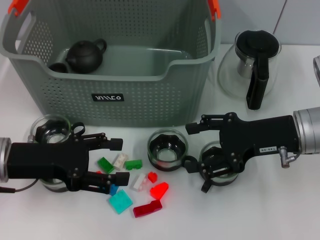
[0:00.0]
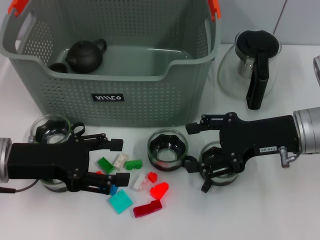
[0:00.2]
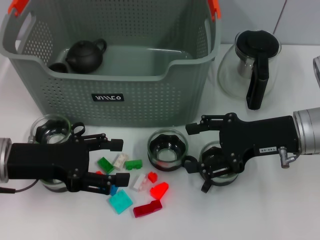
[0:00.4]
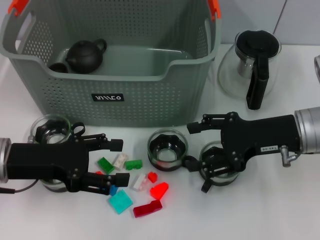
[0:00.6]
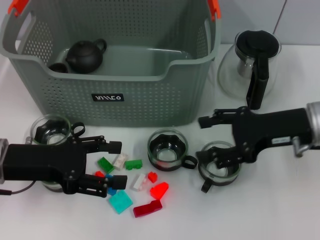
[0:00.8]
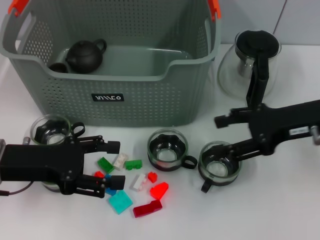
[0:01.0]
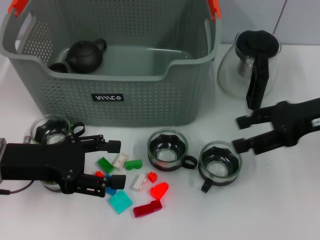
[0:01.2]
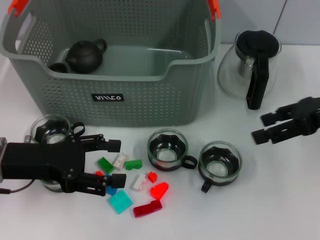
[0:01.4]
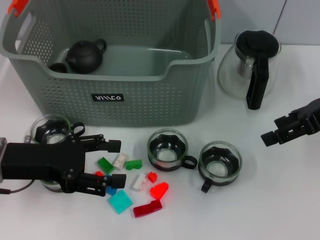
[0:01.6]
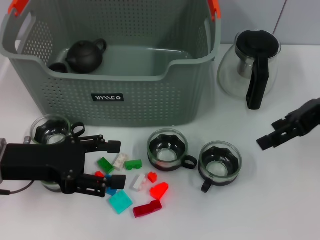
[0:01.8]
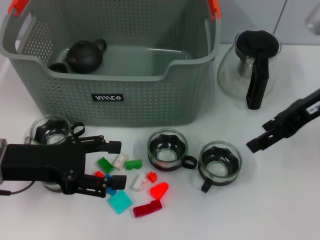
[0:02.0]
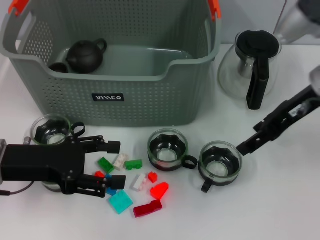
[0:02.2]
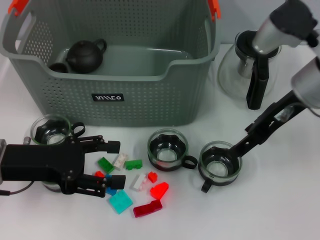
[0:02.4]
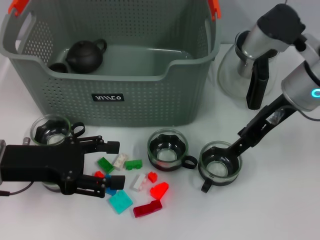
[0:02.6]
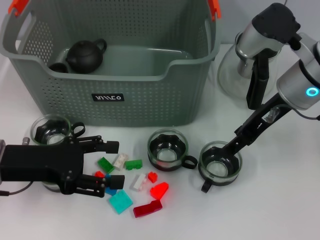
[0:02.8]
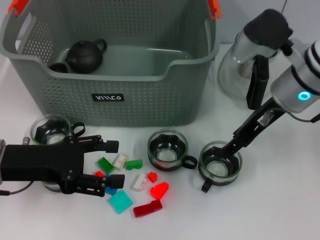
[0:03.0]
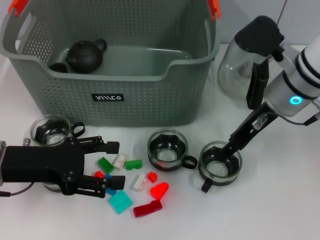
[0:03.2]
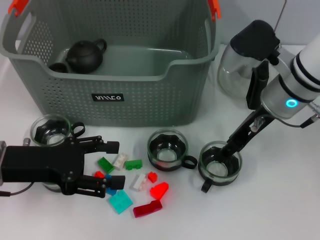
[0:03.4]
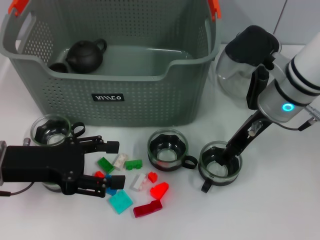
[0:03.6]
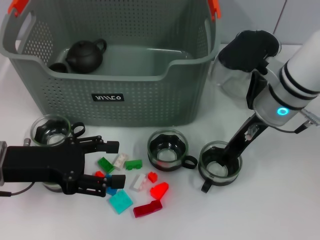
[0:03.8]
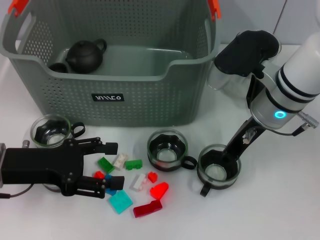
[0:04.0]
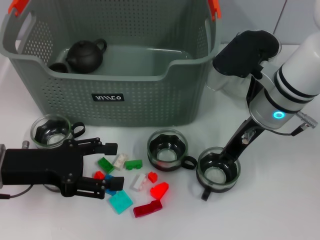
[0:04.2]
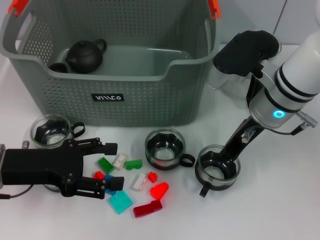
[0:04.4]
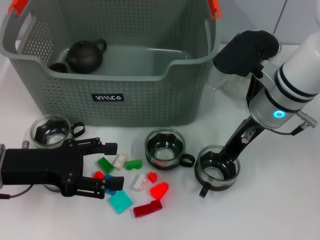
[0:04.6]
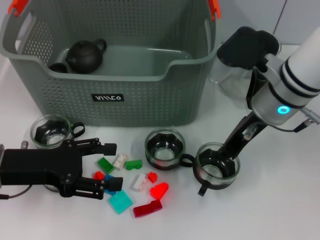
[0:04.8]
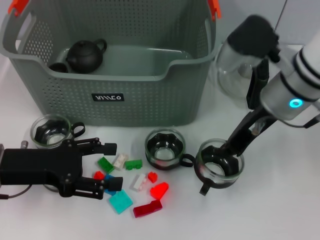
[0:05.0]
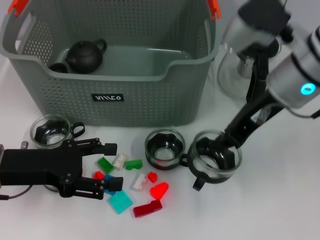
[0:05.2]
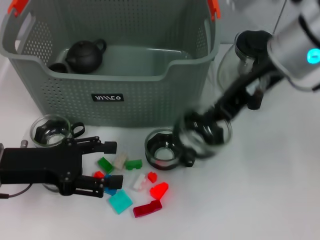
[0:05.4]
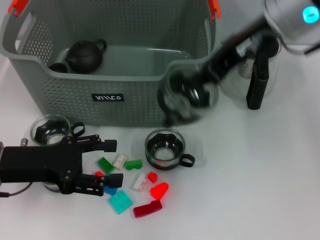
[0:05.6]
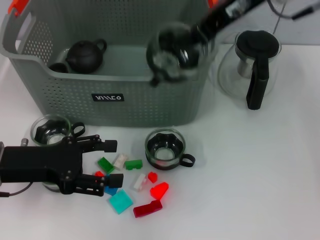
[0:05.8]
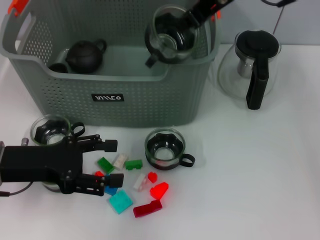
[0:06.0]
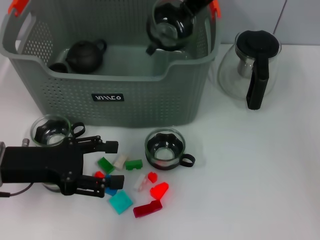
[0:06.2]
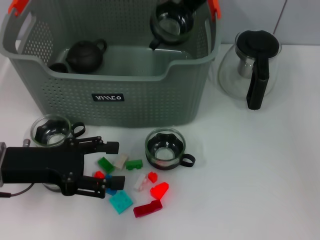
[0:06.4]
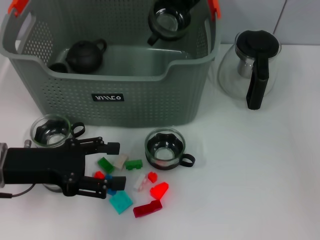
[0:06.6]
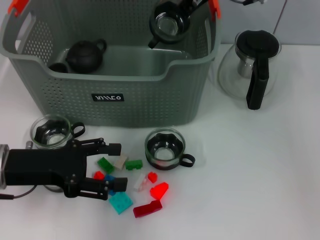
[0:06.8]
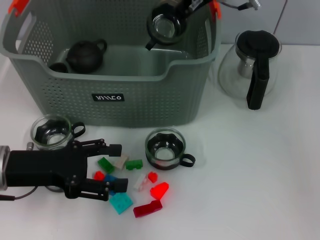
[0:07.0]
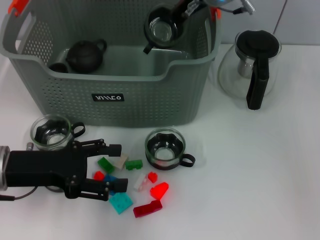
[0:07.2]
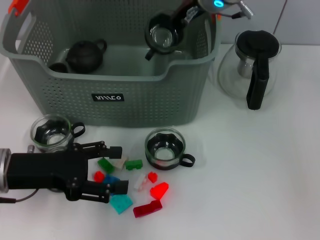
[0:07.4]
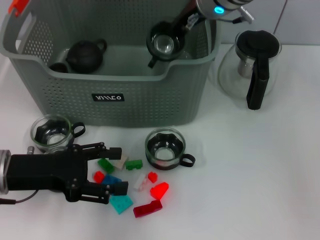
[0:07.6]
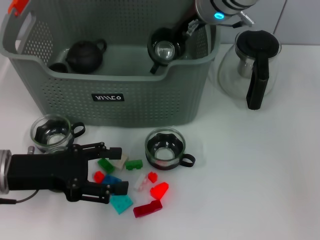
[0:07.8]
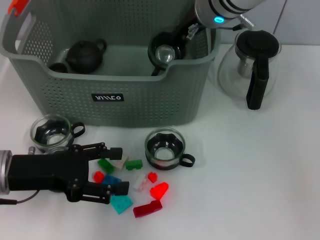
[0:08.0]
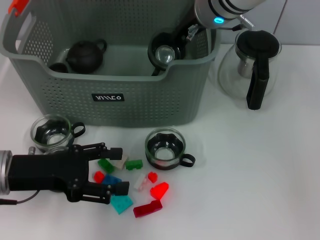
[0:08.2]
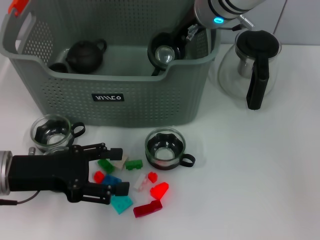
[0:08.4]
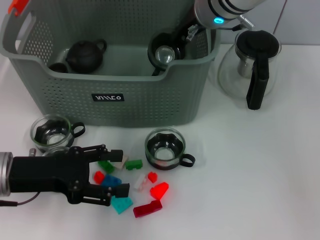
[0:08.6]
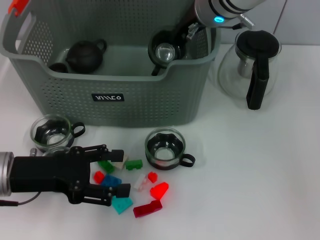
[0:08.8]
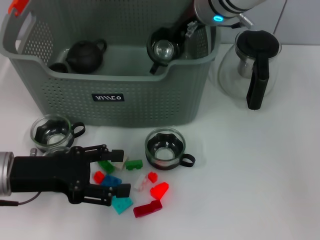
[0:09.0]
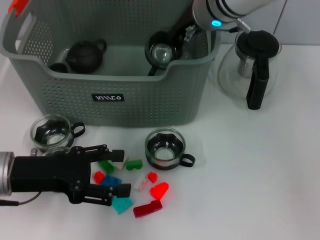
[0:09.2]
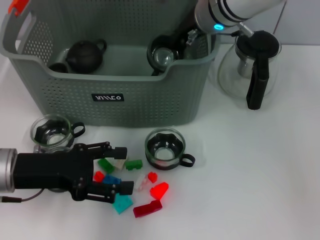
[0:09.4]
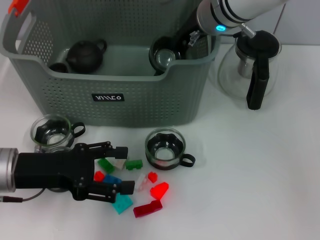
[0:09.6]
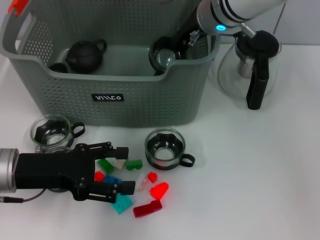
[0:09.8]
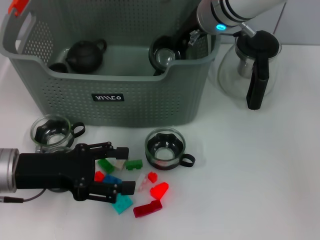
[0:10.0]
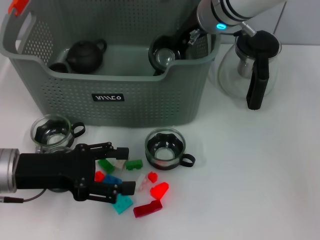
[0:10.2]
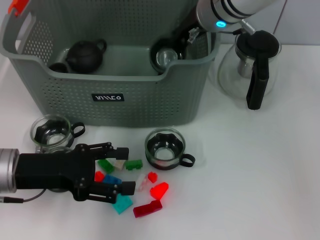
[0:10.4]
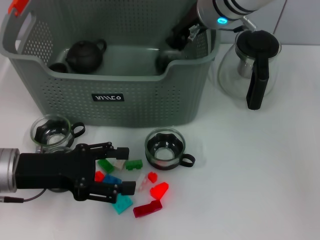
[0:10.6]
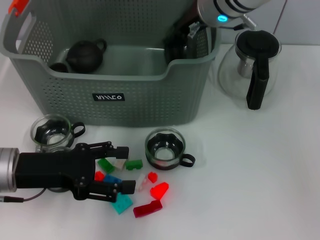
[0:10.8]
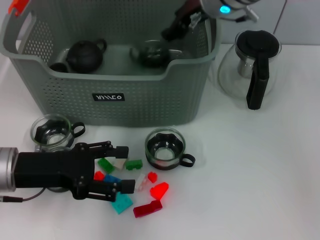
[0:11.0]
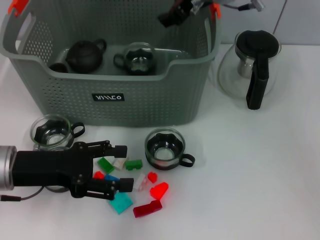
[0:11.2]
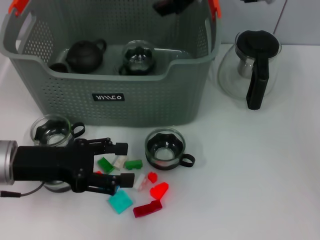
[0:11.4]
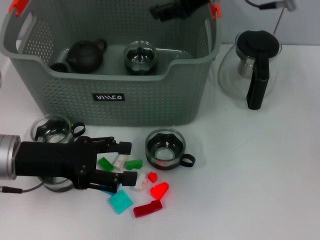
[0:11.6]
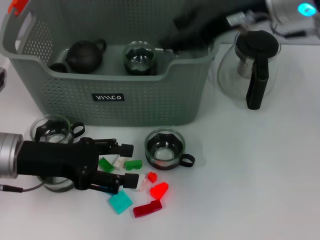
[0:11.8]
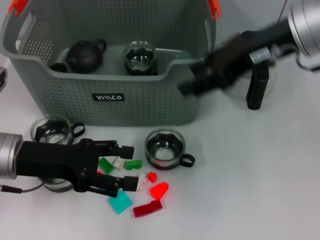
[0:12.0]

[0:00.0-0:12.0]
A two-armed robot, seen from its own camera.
Task of the whole recording: pick up the teacup on the table and place it into the storage bin, pick up the block on the table and place it into the storage bin.
Step, 0:00.0 to 0:04.2: Grasp the cup with right gripper.
Step, 0:04.4 to 0:11.0: Place the cup in the storage box with right gripper.
0:00.0 to 0:01.6: The right gripper is displaced upward and to the right by roughly 10 cm.
0:01.6 to 0:03.0: The right gripper travels to the left by some 10 cm.
0:03.0 to 0:04.4: The right gripper closes up.
0:04.4 to 0:06.0: The right gripper is displaced upward by about 15 cm.
0:06.0 to 0:07.6: The right gripper heads downward and forward, covering some 10 cm.
0:07.6 to 0:09.0: The two grippers keep their place.
0:09.0 to 0:10.4: Both grippers stay put.
0:10.4 to 0:12.0: The right gripper heads backward, to the right and upward, covering about 15 cm, and opens its fingers.

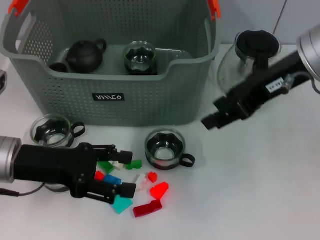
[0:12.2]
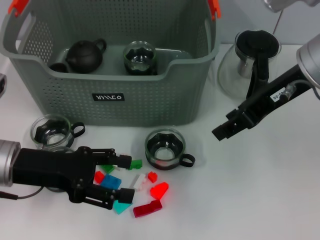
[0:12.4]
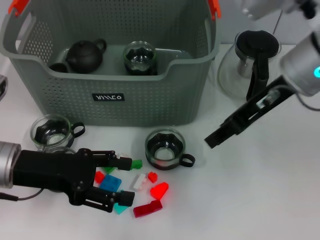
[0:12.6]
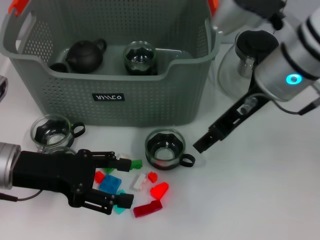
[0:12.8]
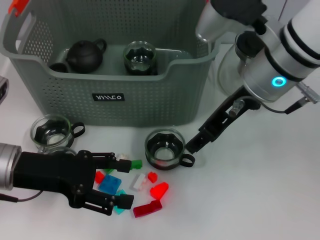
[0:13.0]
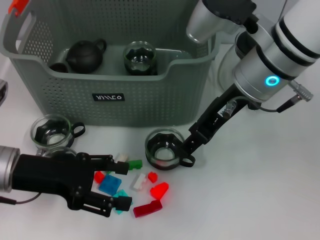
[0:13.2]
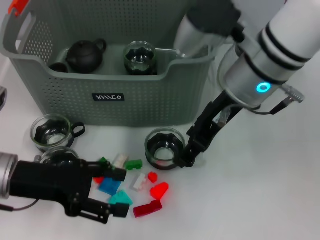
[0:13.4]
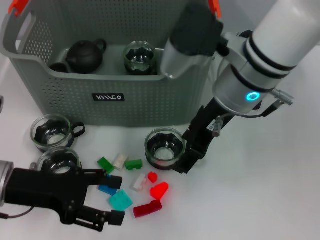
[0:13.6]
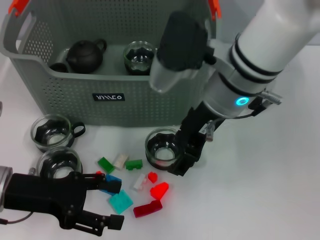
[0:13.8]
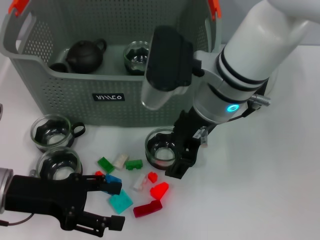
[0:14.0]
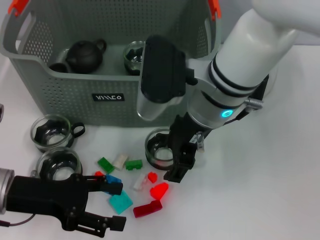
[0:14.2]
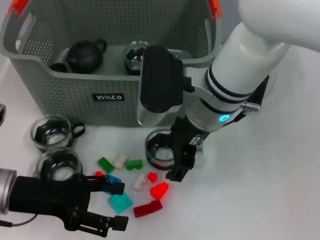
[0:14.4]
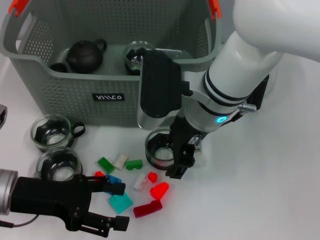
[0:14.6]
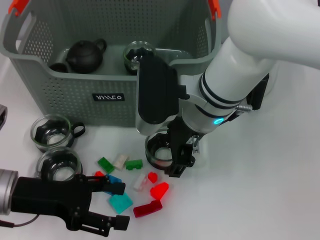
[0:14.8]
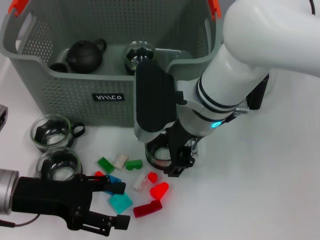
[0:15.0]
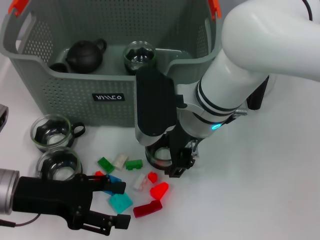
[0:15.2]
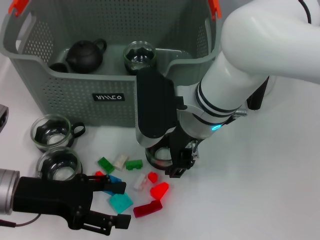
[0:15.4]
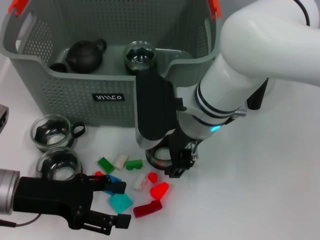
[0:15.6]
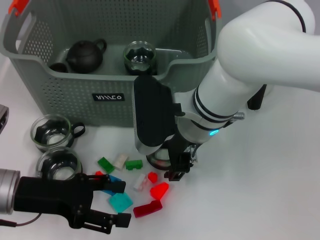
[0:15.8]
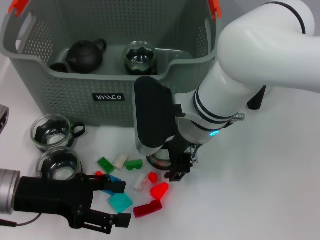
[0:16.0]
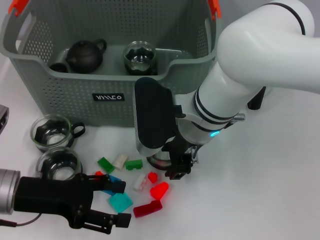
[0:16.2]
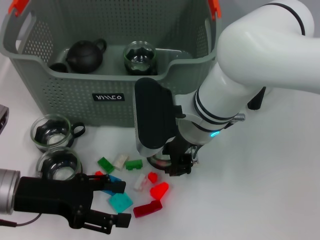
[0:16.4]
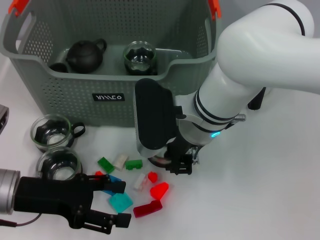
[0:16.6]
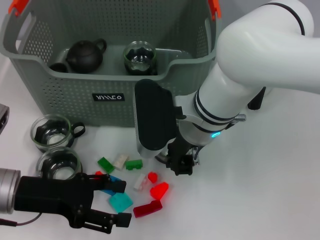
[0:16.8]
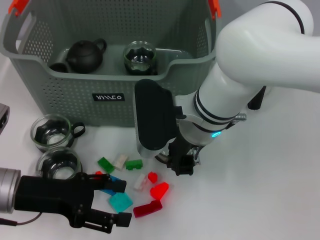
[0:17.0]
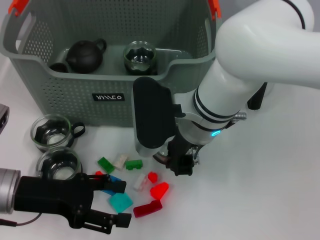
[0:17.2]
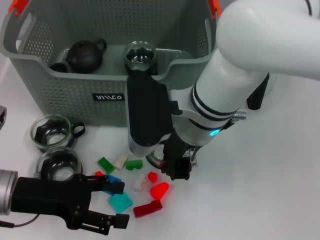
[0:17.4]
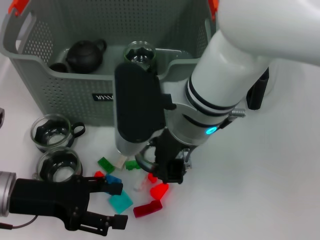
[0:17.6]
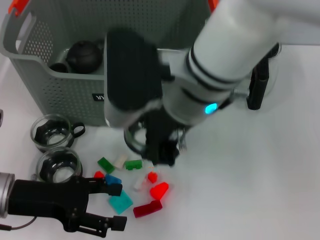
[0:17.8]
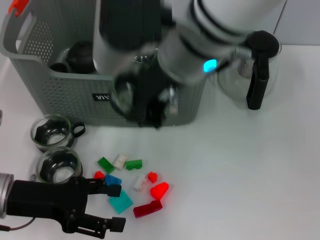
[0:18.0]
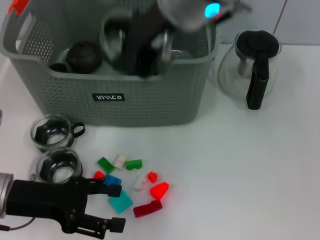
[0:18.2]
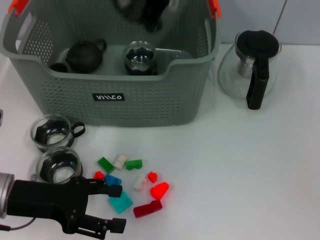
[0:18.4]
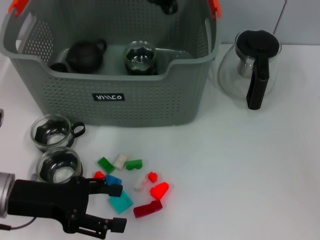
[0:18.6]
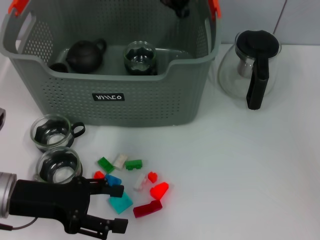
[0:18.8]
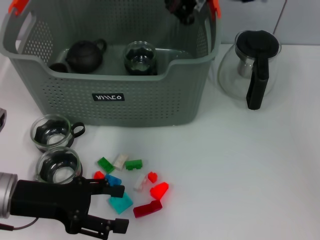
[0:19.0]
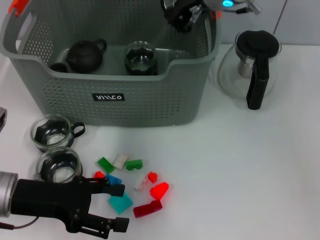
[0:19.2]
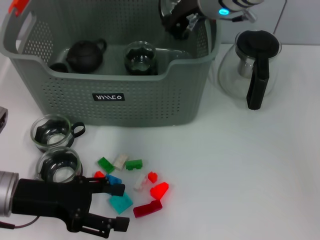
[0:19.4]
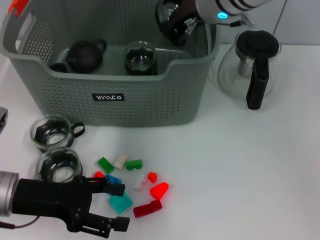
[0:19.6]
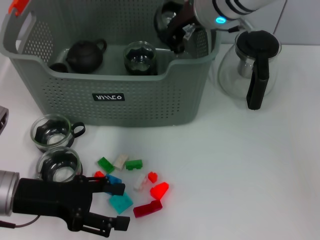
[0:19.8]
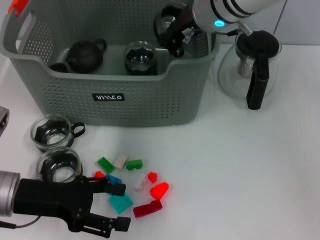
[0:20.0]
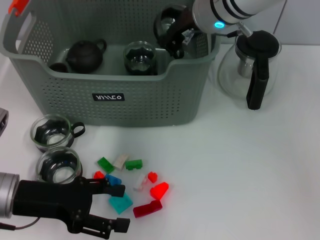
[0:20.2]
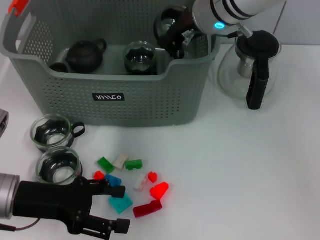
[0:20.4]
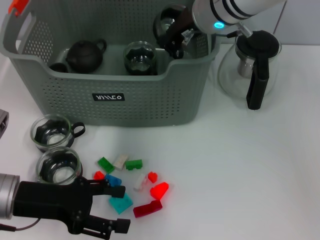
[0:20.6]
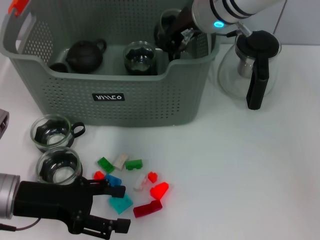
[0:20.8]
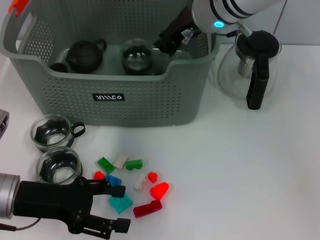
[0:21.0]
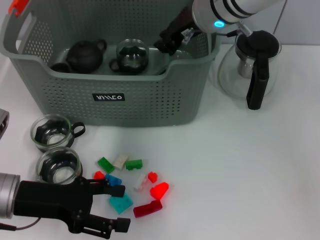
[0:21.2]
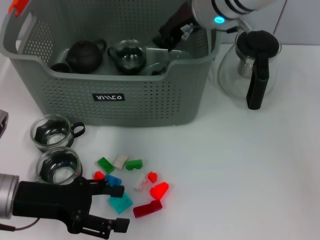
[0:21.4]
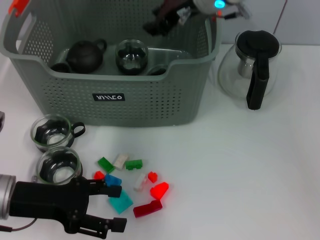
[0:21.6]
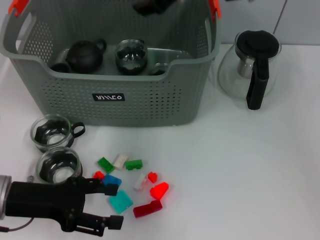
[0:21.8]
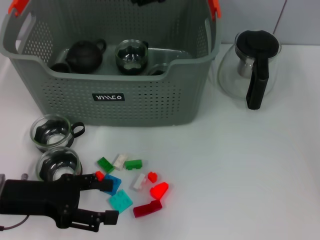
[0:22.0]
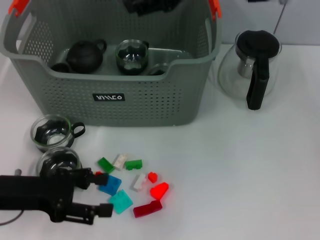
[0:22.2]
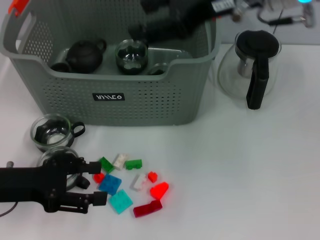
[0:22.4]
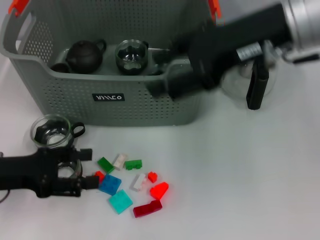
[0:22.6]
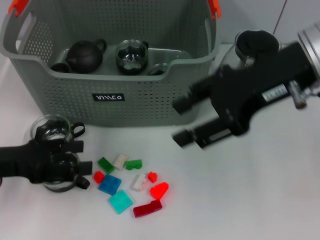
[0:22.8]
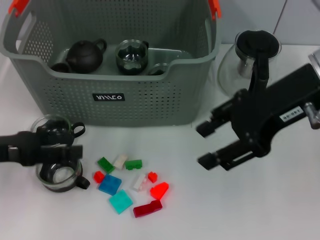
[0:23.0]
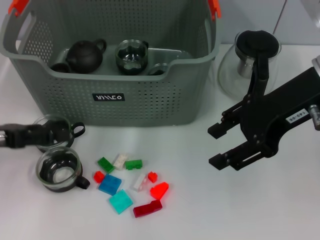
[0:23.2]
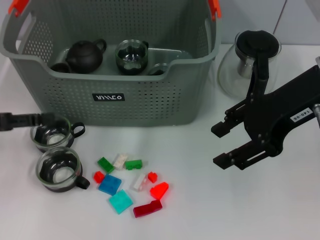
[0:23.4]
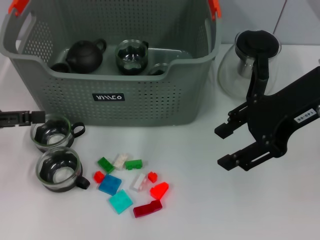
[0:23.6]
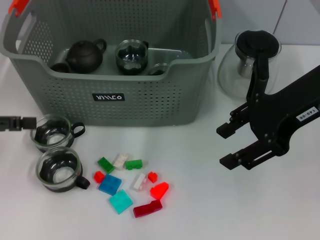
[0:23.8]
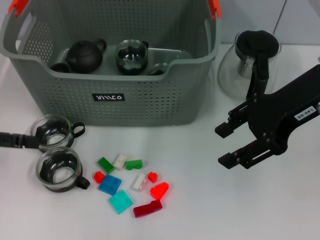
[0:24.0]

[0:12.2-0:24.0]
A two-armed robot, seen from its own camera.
Task of the whole recording: pick up the teacup on the table and place it into the storage bin, pick up the block on the table and place it into the storage bin.
Step, 0:12.2 to 0:17.2: Grasp the cup with right gripper.
Step, 0:17.4 to 0:21.2: Place the cup in the storage box with right gripper.
0:12.2 to 0:13.6: The right gripper travels to the left and downward by approximately 10 cm.
0:13.6 to 0:15.2: The right gripper heads downward, covering about 5 cm.
0:15.2 to 0:16.6: The right gripper closes up.
0:16.6 to 0:18.2: The right gripper is displaced upward by roughly 20 cm.
0:18.2 to 0:19.6: The right gripper travels forward and downward by roughly 15 cm.
0:19.6 to 0:21.0: Both grippers stay put.
0:21.0 to 0:22.6: The left gripper moves roughly 5 cm, while the right gripper heads backward, to the right and upward, covering approximately 15 cm, and opens.
0:22.6 to 0:24.0: The right gripper ends up about 5 cm from where it was. Meanwhile the left gripper heads to the left and upward, covering roughly 10 cm.
